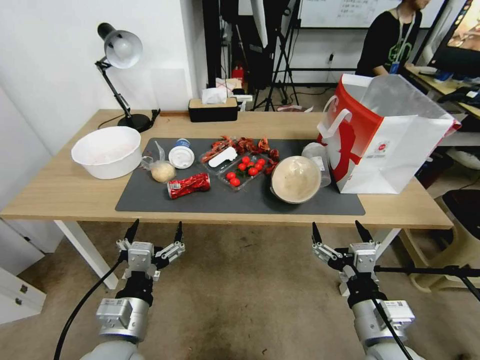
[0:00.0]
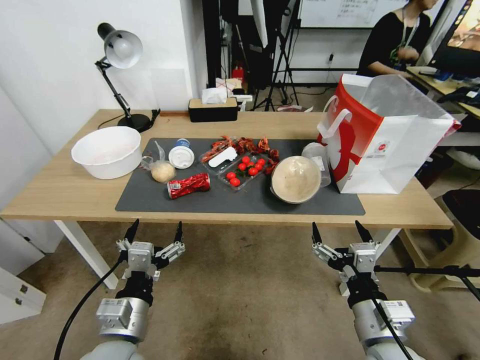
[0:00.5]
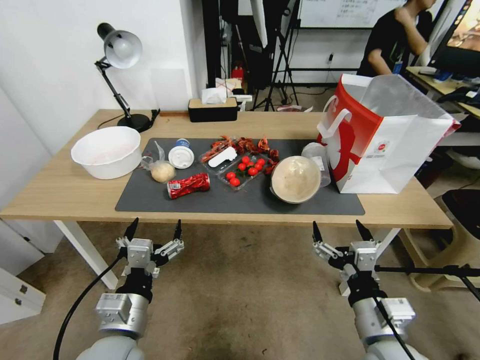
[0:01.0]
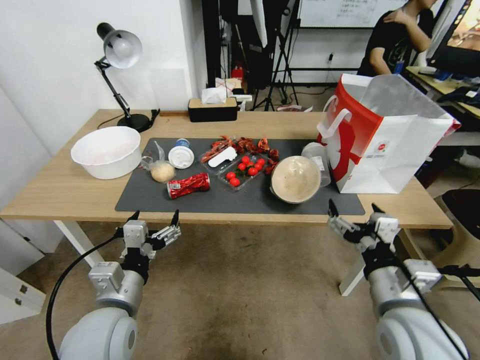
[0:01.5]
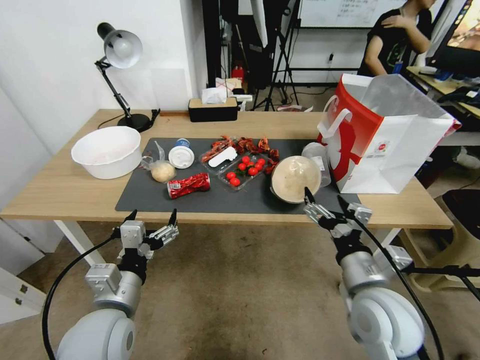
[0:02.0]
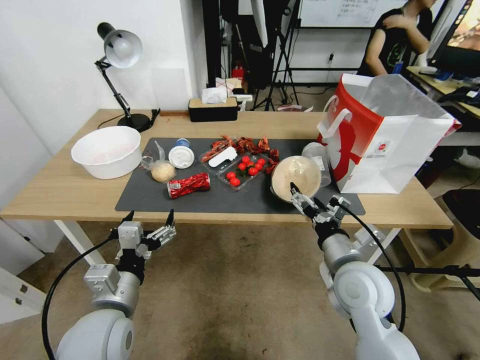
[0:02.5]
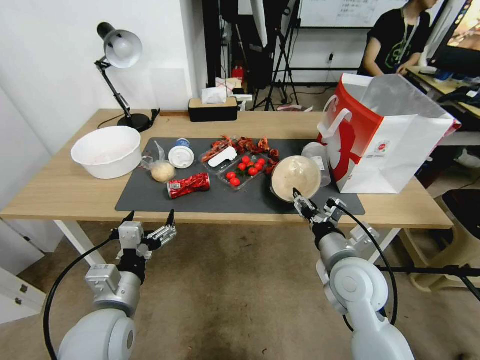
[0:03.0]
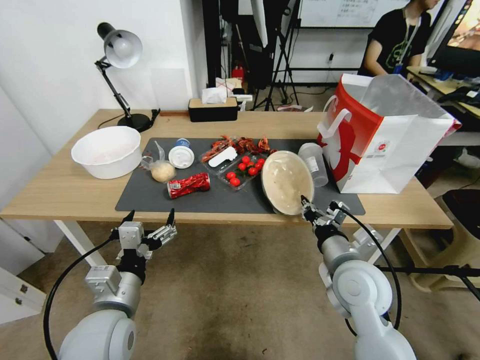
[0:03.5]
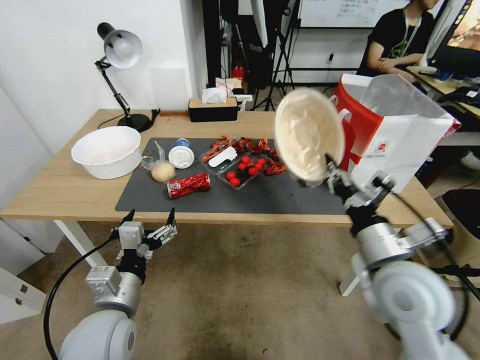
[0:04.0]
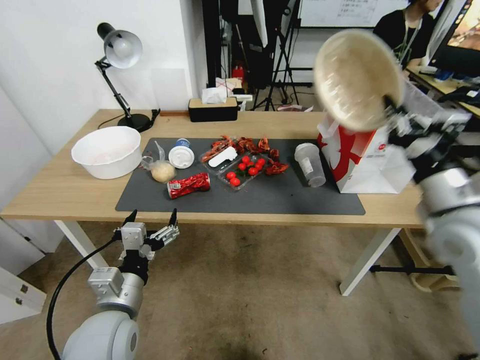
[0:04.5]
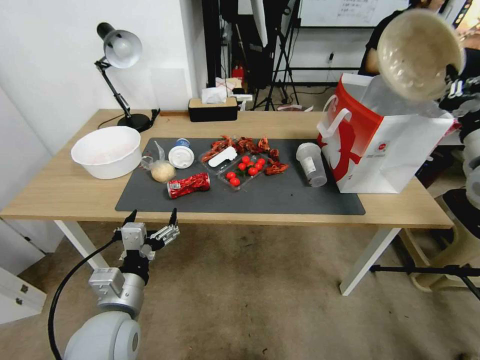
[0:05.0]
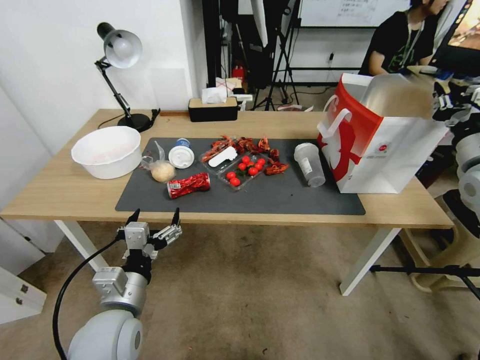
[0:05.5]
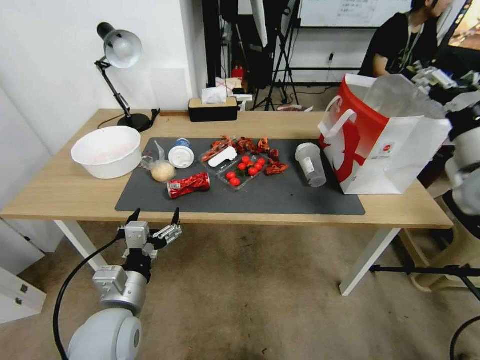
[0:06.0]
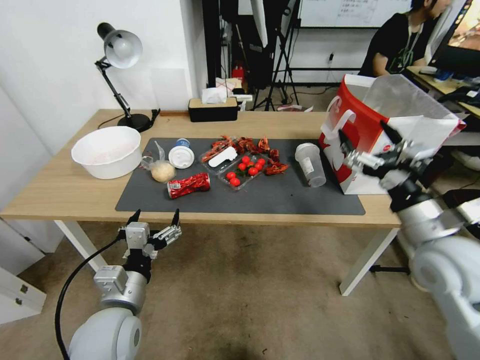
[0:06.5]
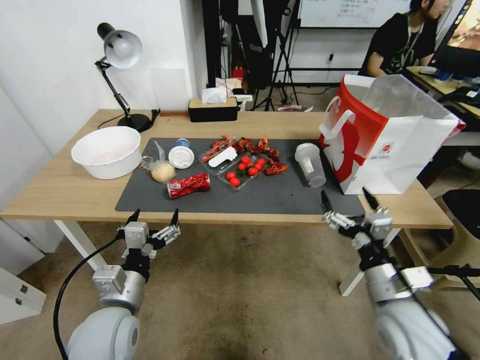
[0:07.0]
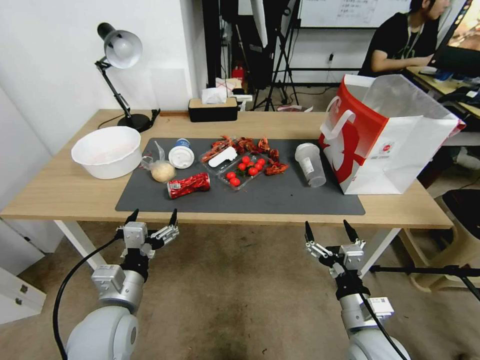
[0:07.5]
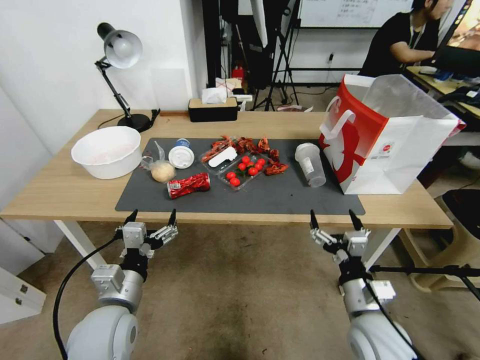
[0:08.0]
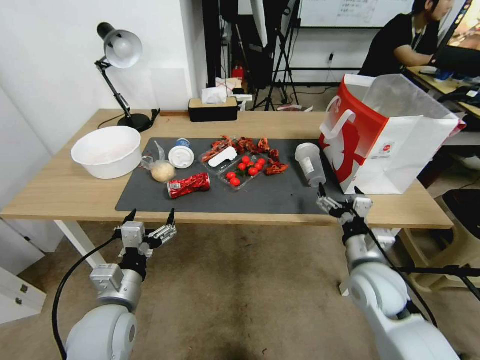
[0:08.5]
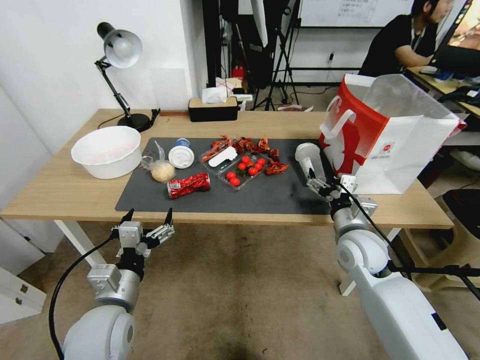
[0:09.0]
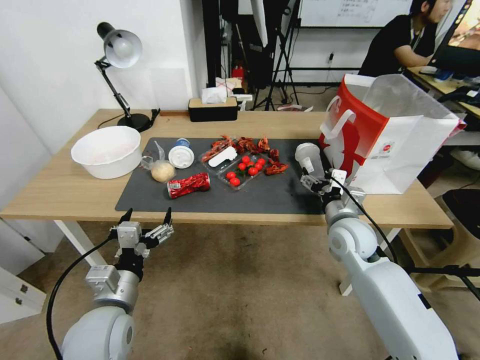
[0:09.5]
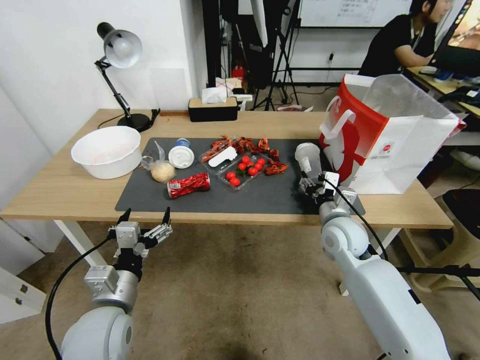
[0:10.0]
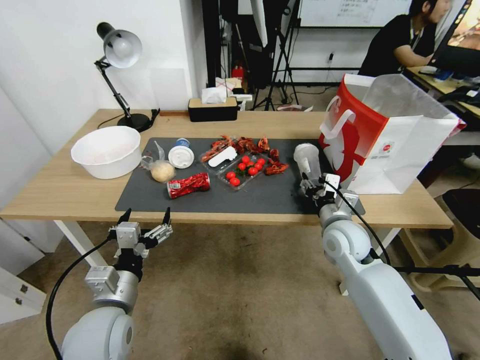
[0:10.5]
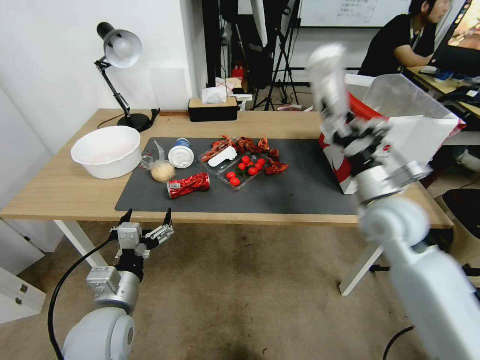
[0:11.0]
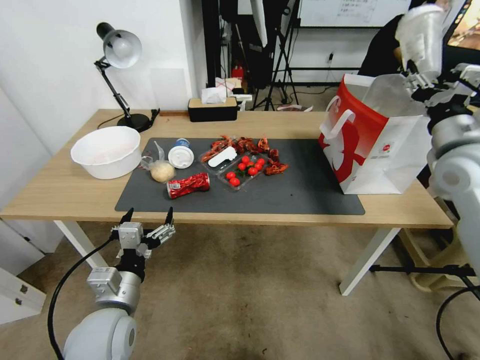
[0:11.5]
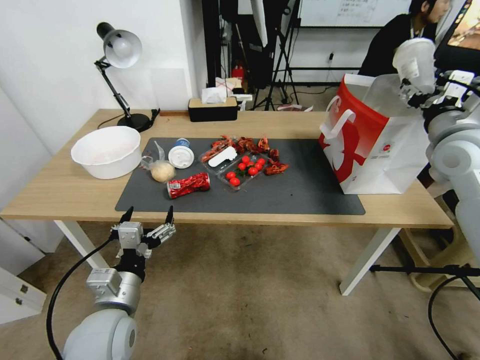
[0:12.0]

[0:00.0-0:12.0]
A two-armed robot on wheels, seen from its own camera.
0:02.0 to 0:04.0: The right gripper moves upward, roughly 5 cm, and closes.
0:04.0 to 0:06.0: The right gripper travels to the right, forward and upward by about 25 cm, and opens its fingers.
0:06.0 to 0:08.0: The right gripper heads downward, to the left and backward, covering some 35 cm.
0:08.0 to 0:10.0: The right gripper shifts some 20 cm forward, and closes its fingers.
0:10.0 to 0:12.0: The right gripper shifts approximately 25 cm upward and to the right.

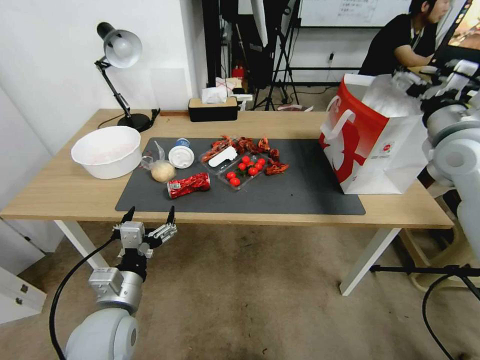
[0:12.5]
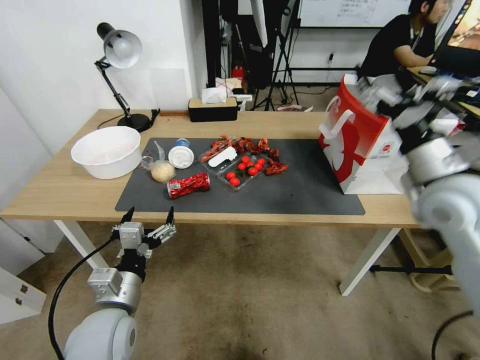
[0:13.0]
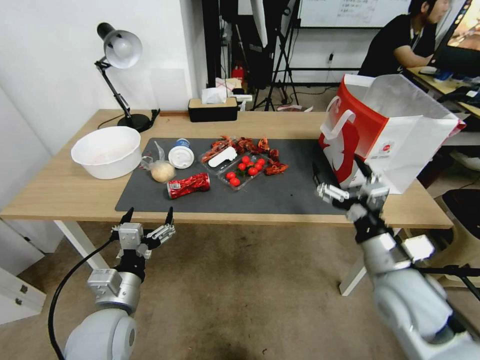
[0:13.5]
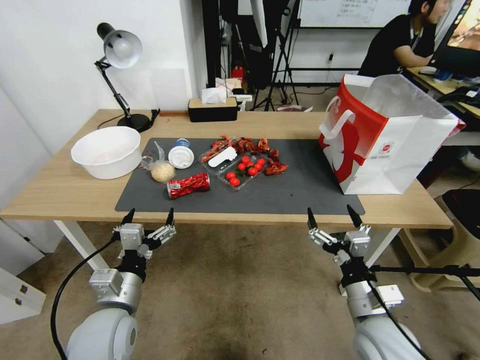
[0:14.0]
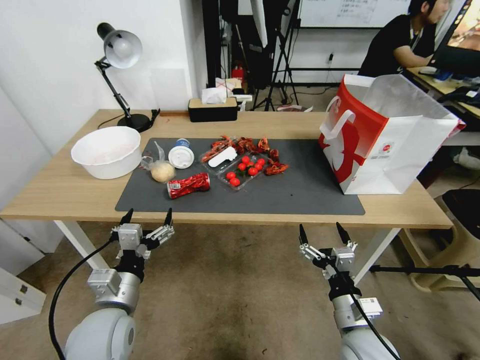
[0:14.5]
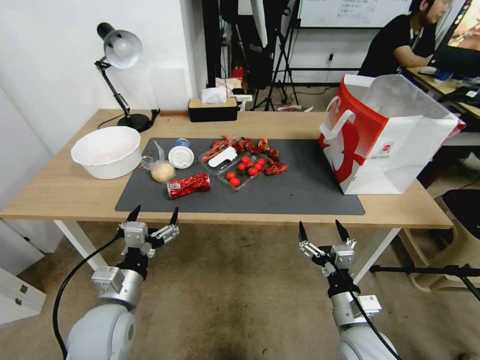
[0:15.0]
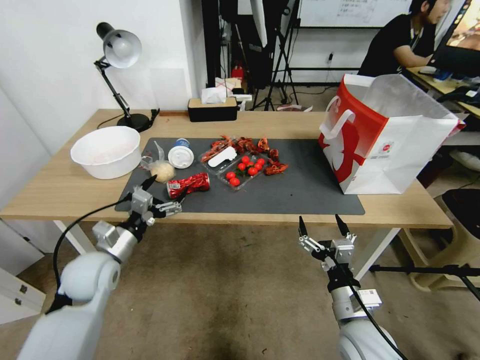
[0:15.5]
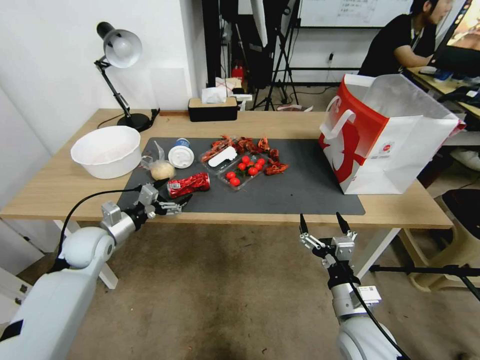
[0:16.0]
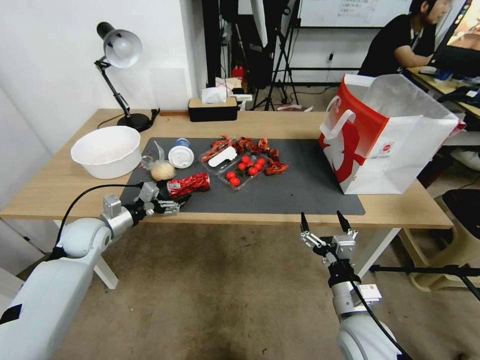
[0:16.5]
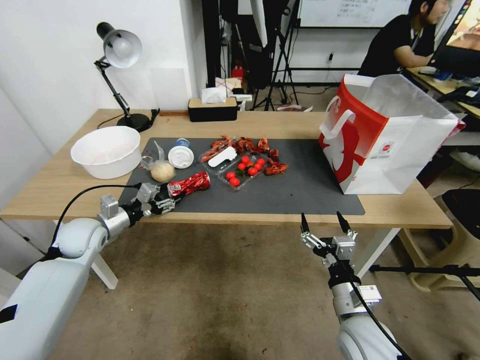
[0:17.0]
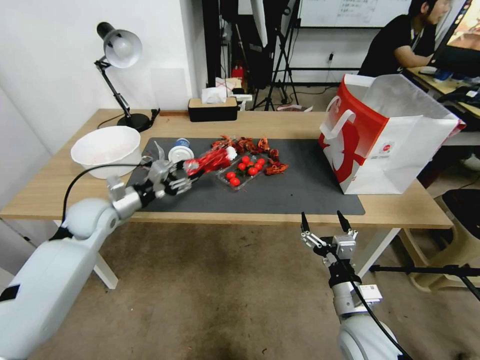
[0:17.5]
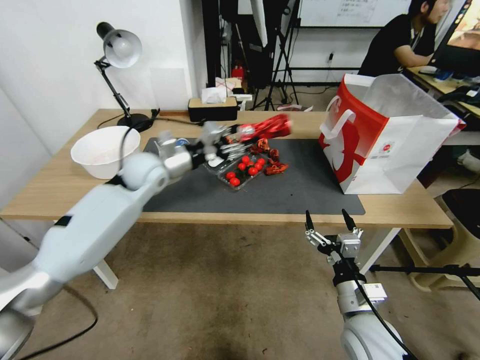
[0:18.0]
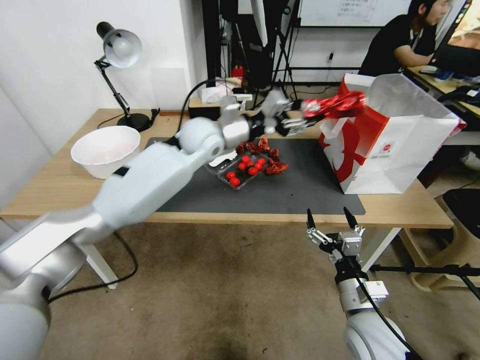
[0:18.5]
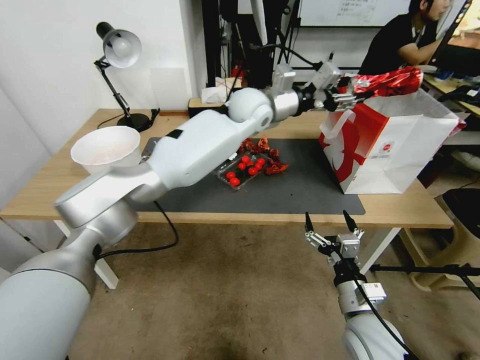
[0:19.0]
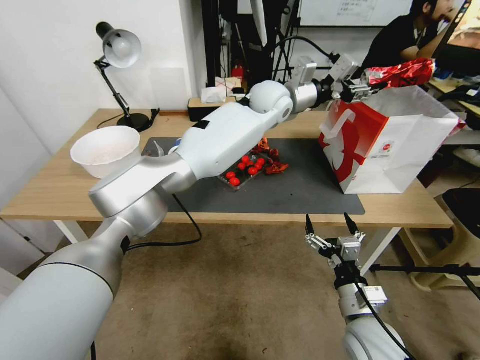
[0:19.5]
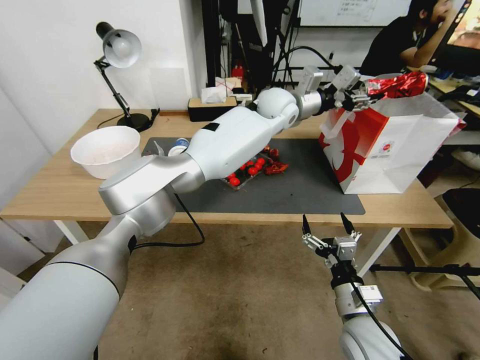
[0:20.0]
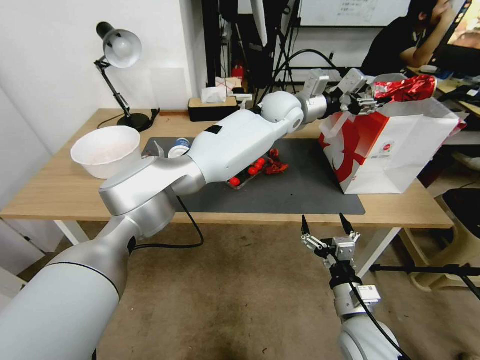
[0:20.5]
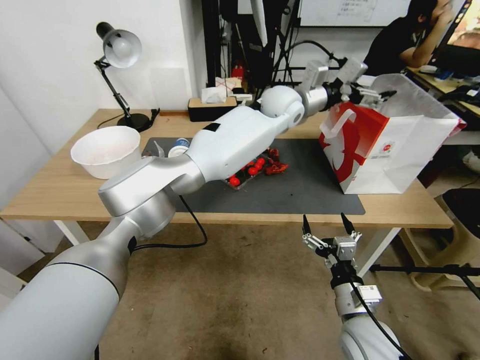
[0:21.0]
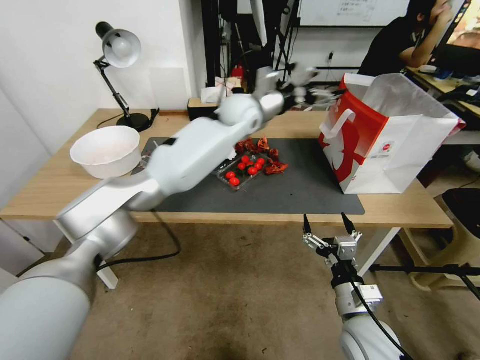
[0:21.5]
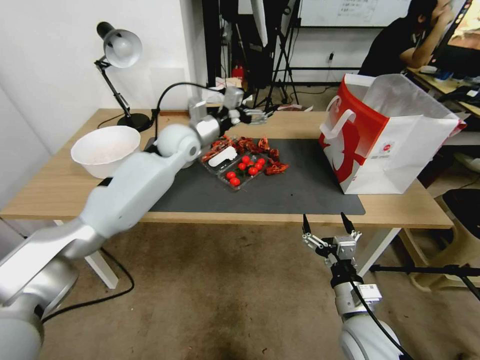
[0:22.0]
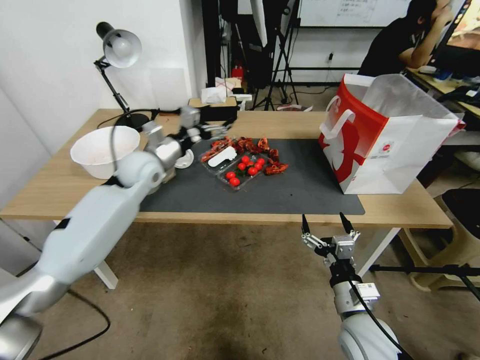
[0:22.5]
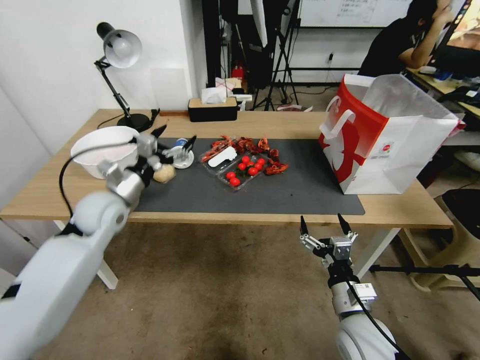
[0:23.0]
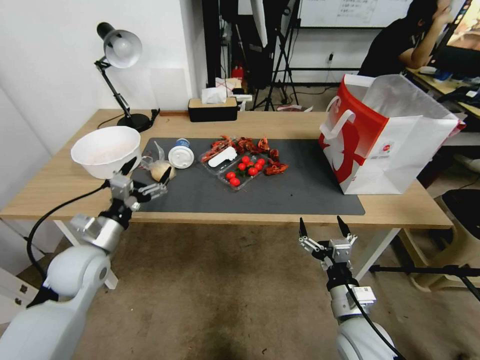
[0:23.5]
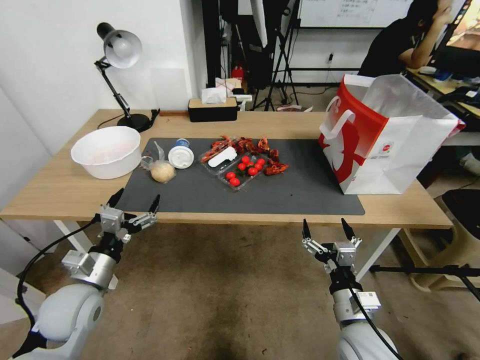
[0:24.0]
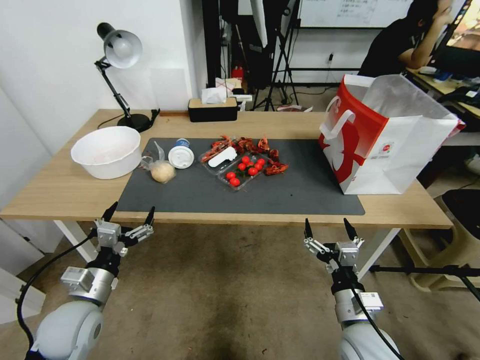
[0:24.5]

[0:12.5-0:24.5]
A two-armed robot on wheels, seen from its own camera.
0:12.5 to 0:14.5: The right gripper shifts some 40 cm downward, backward and to the left.
0:14.5 to 0:16.5: The left gripper heads forward and to the left, covering roughly 25 cm.
0:16.5 to 0:18.5: The left gripper is displaced to the right, upward and forward by roughly 40 cm, and closes up.
0:18.5 to 0:20.5: The left gripper shifts about 15 cm to the right.
0:20.5 to 0:22.5: The left gripper travels to the left by about 35 cm, and opens its fingers.
0:22.5 to 0:24.5: The left gripper goes some 30 cm backward and downward.

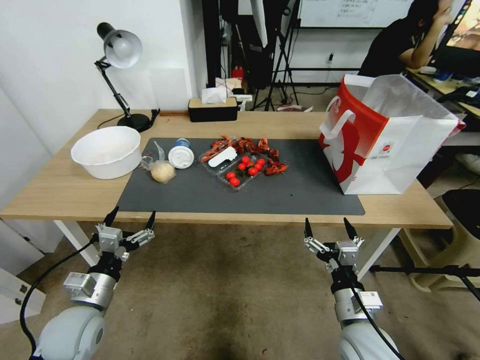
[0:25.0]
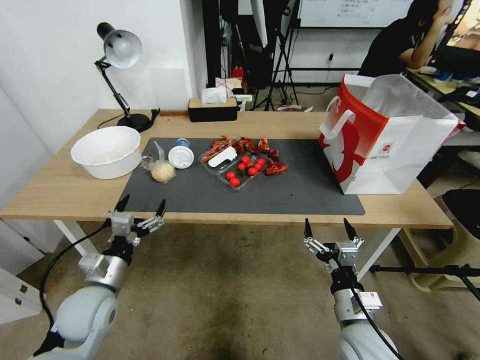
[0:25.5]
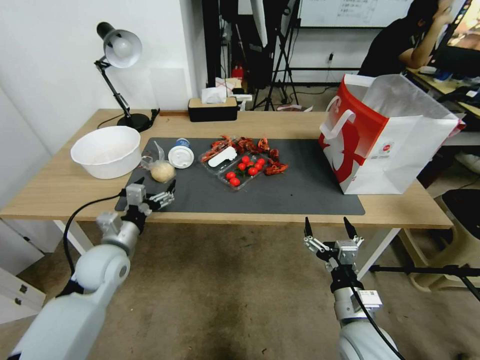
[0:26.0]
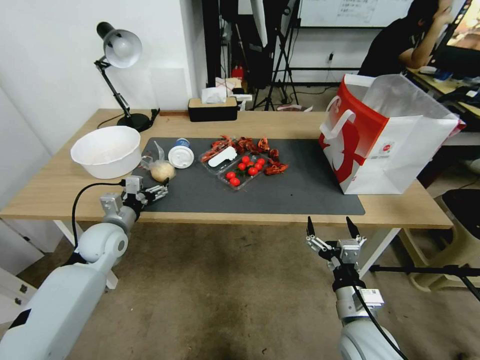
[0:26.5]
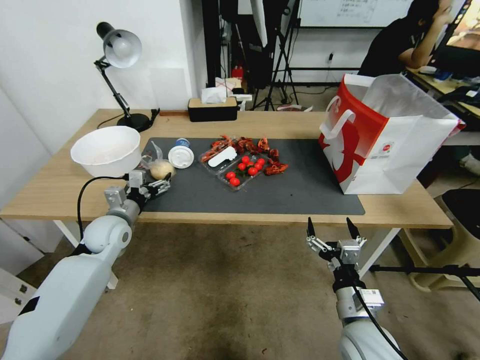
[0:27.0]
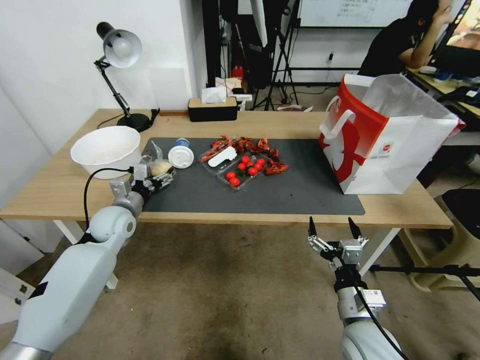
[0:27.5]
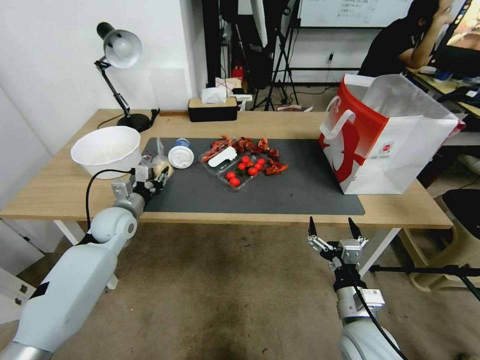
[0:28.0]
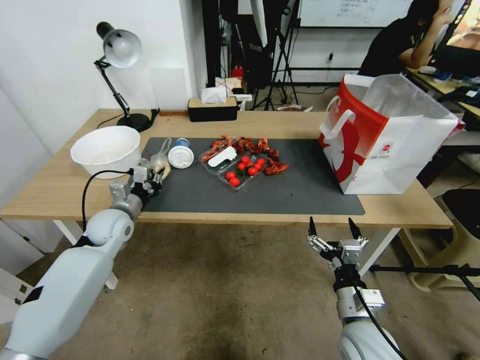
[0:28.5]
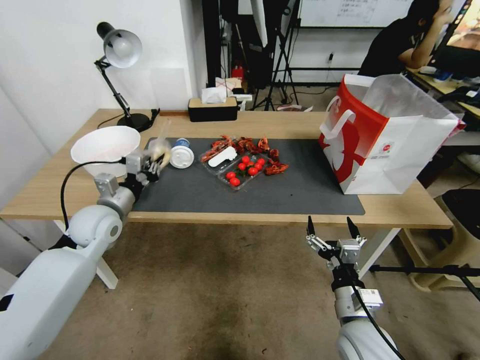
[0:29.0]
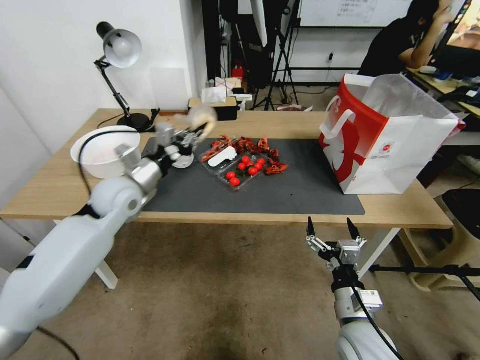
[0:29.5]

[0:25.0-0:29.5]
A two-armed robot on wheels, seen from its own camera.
0:25.0 to 0:27.0: The left gripper shifts about 20 cm forward.
0:27.0 to 0:29.5: The left gripper moves upward and to the right, roughly 15 cm, and closes its fingers.
